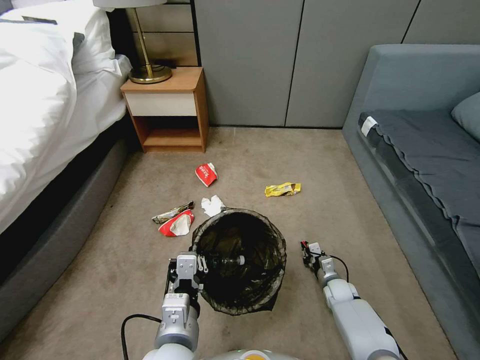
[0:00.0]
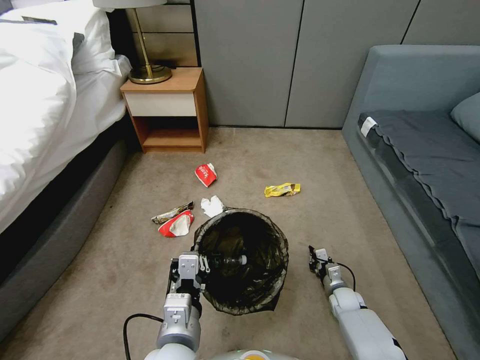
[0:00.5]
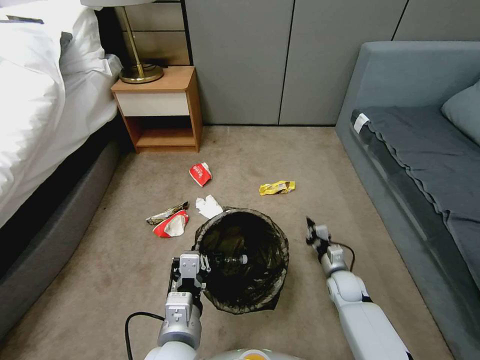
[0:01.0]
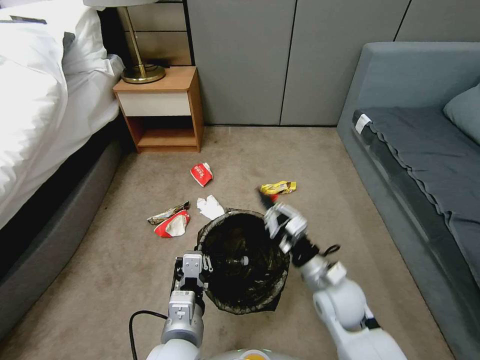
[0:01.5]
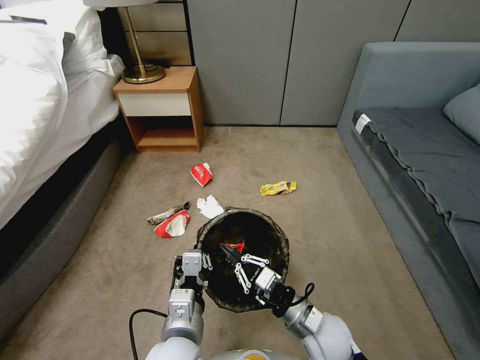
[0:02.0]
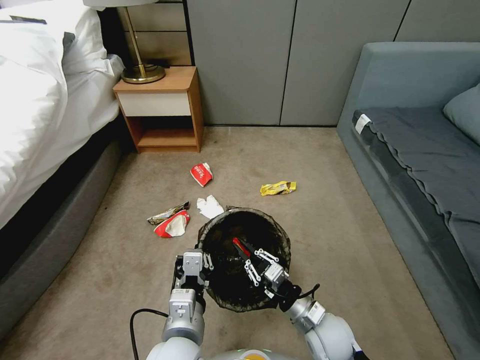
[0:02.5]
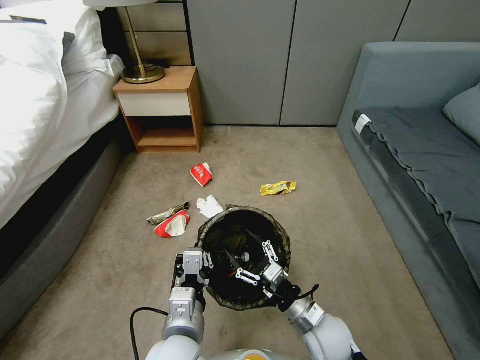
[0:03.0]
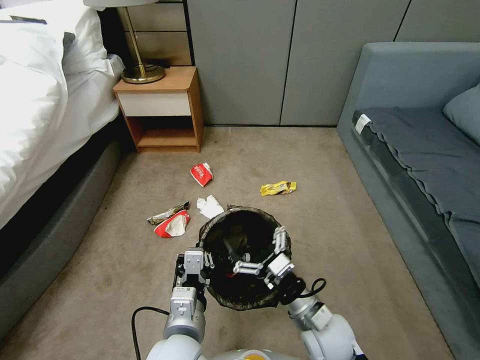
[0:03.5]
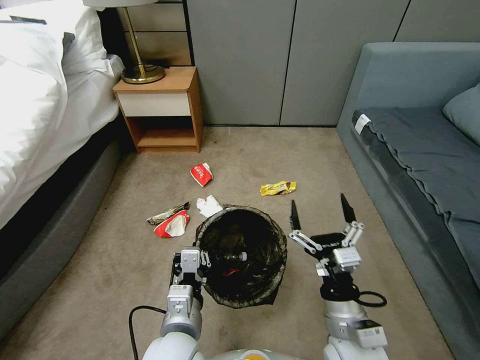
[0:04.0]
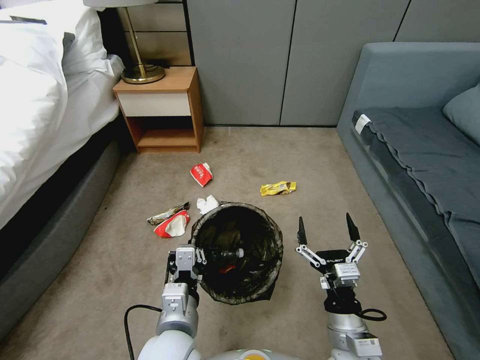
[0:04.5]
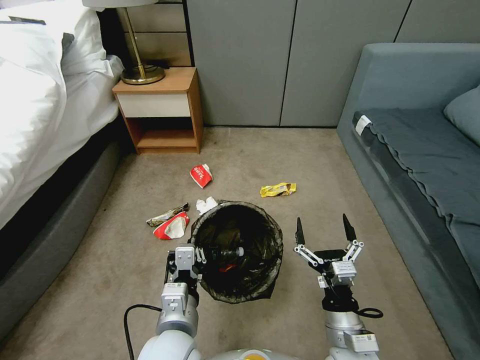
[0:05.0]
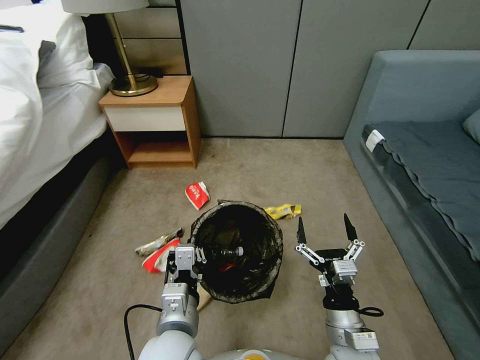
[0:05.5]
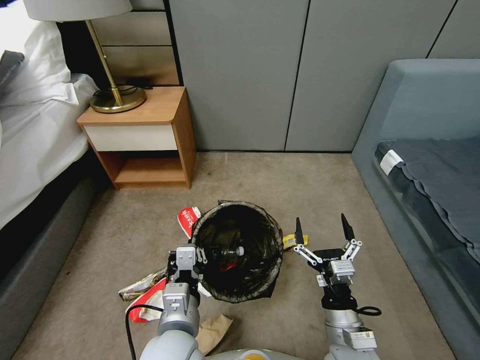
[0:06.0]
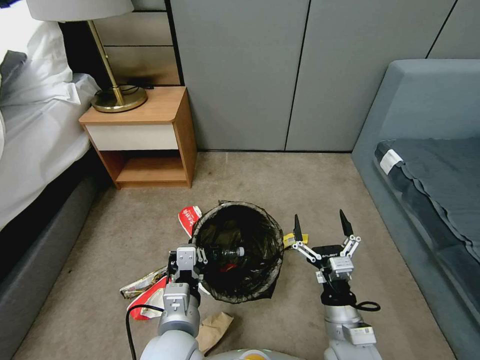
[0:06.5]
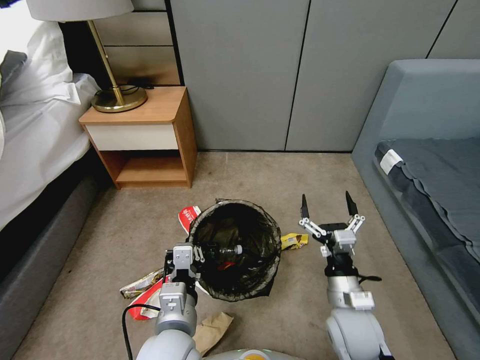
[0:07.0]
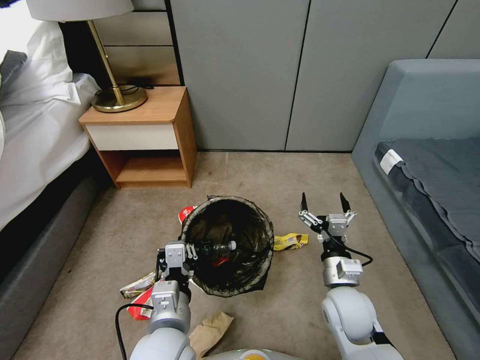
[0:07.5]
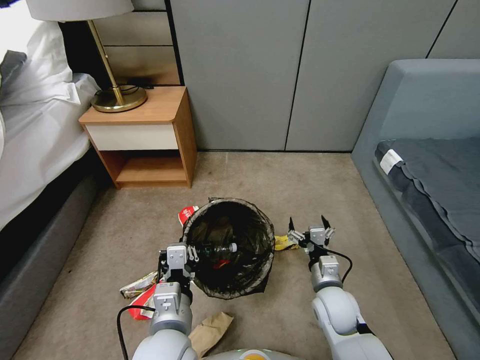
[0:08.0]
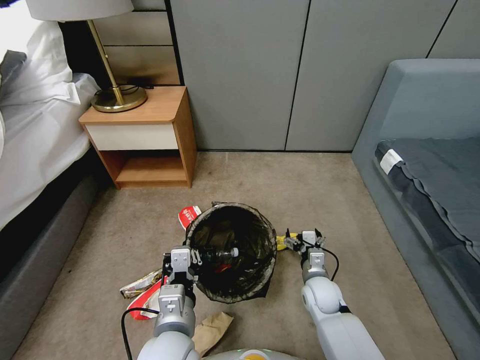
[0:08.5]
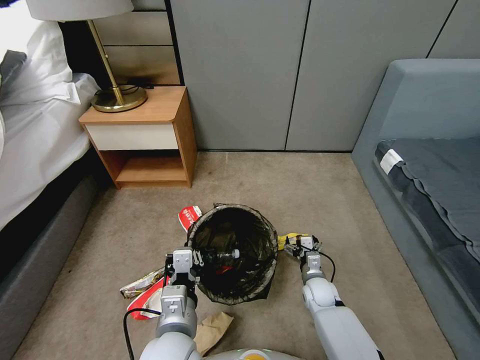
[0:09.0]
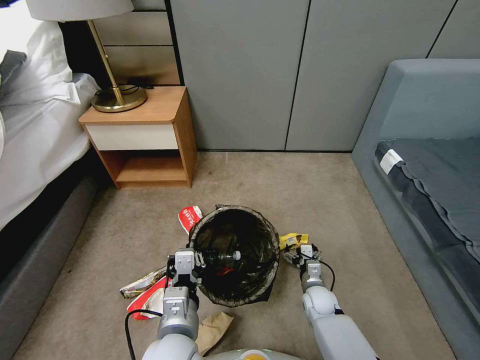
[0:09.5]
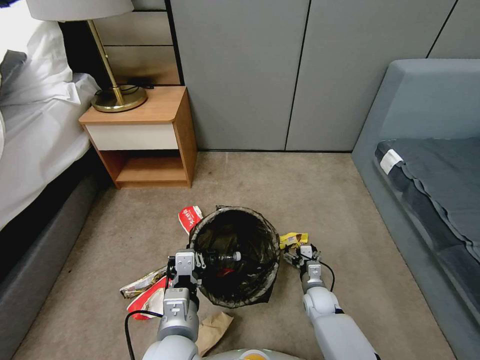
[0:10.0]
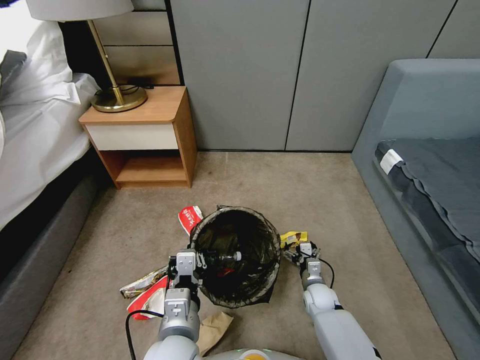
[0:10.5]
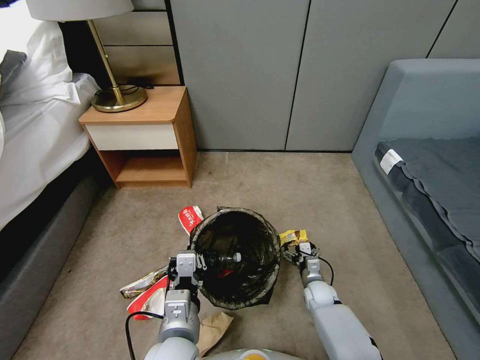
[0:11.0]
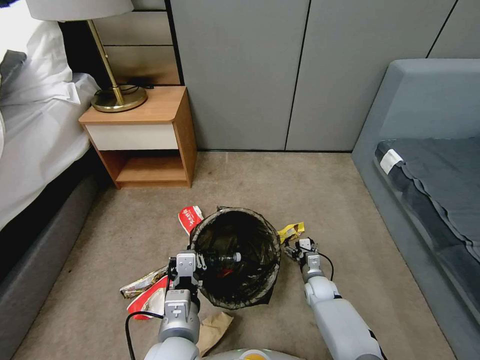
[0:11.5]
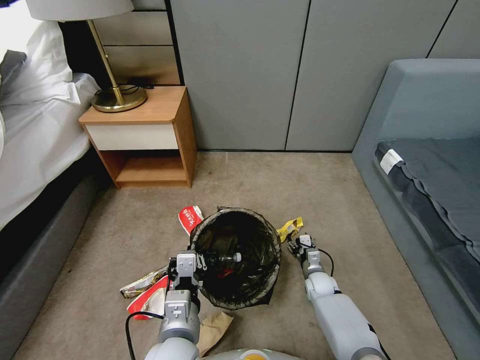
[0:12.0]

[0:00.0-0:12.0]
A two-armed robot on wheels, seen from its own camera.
Task of the whole recording: Pick up the trash bin, then pick up the garbage from the floor and place it into the trash bin.
0:00.0 to 0:02.0: The right gripper heads upward, to the left and backward, covering roughly 30 cm.
0:02.0 to 0:04.0: The right gripper travels upward by roughly 5 cm, and opens.
0:06.0 to 0:08.0: The right gripper is displaced forward by about 10 cm.
0:08.0 to 0:10.0: The right gripper is displaced downward by roughly 15 cm.
0:10.0 to 0:12.0: The grippers move only a little.

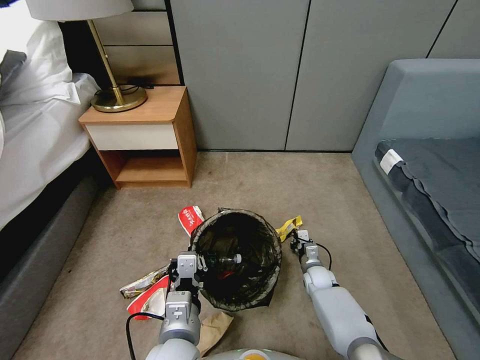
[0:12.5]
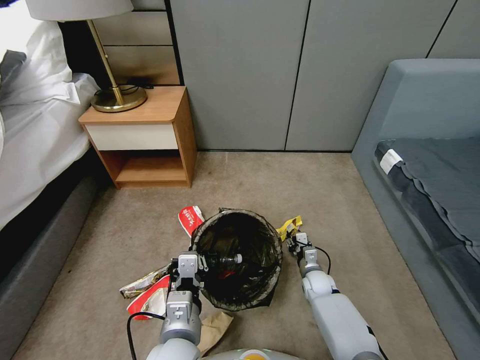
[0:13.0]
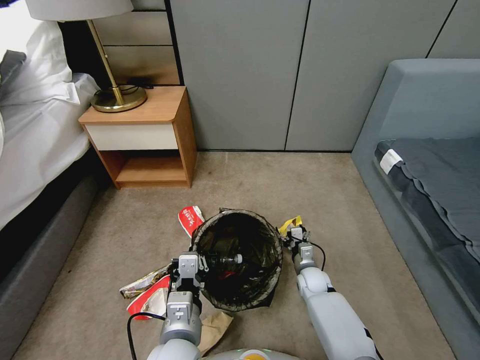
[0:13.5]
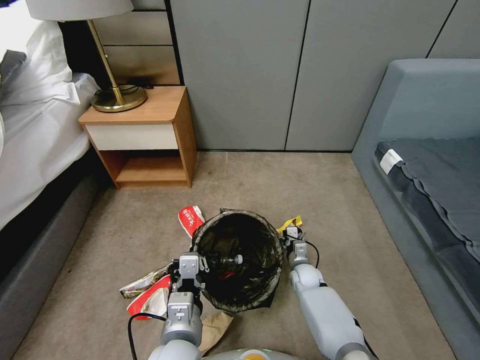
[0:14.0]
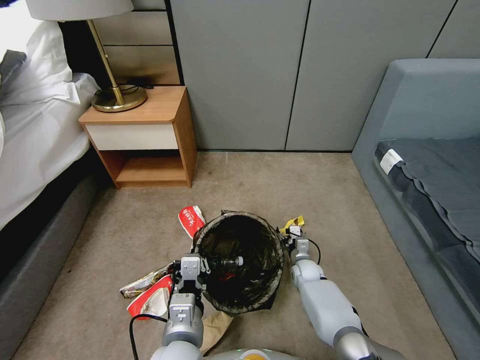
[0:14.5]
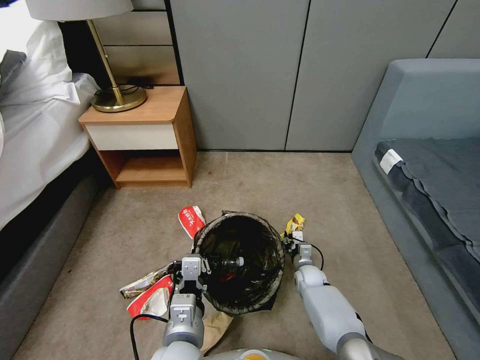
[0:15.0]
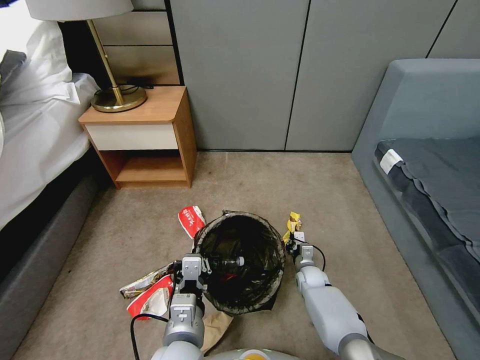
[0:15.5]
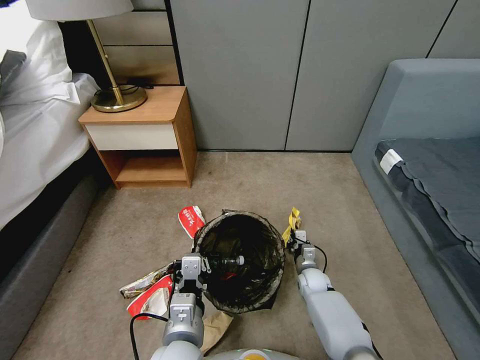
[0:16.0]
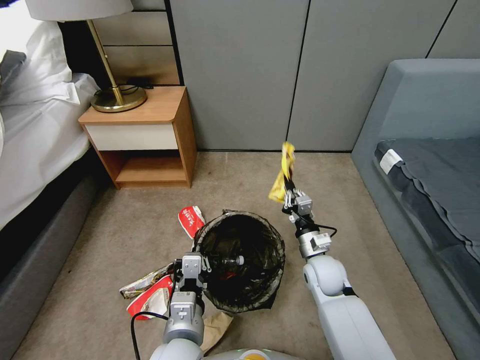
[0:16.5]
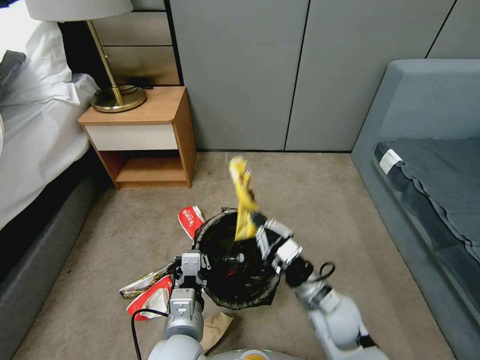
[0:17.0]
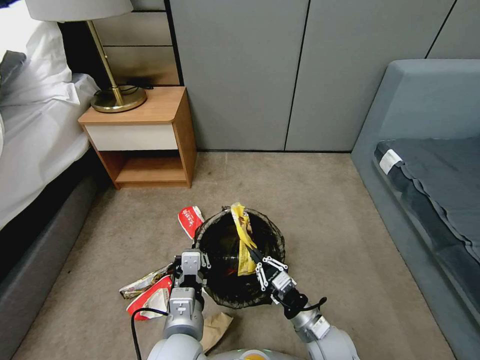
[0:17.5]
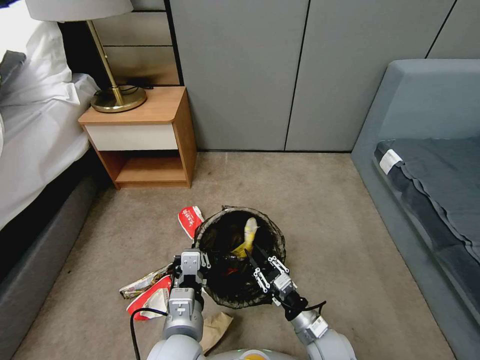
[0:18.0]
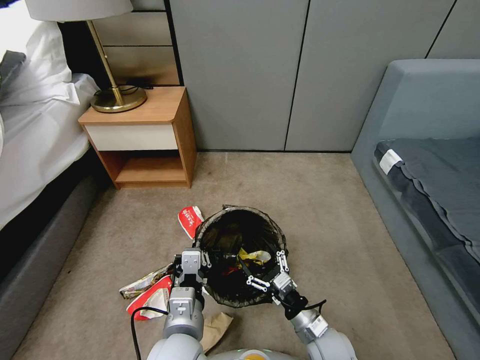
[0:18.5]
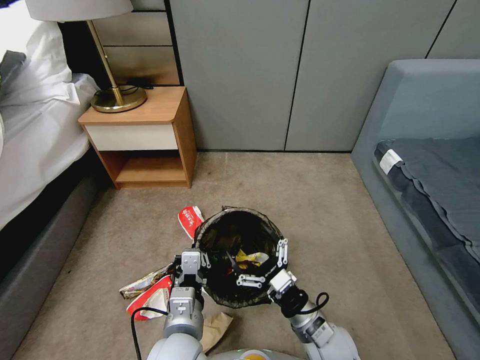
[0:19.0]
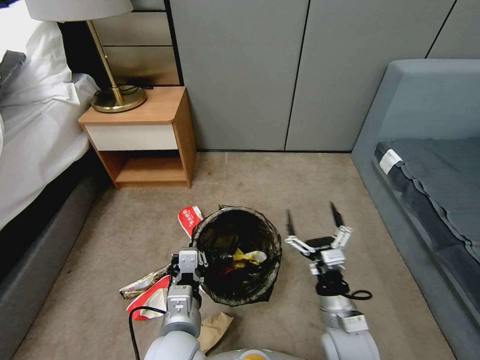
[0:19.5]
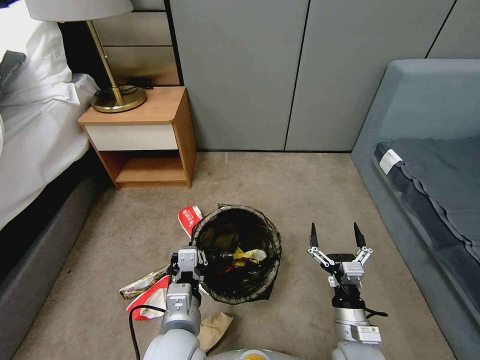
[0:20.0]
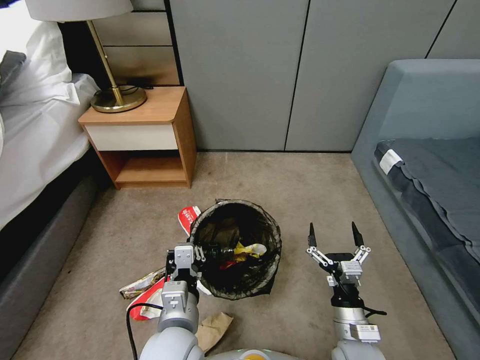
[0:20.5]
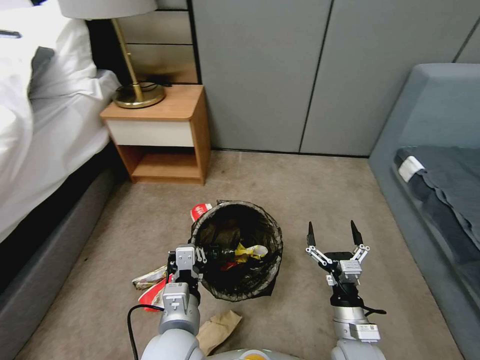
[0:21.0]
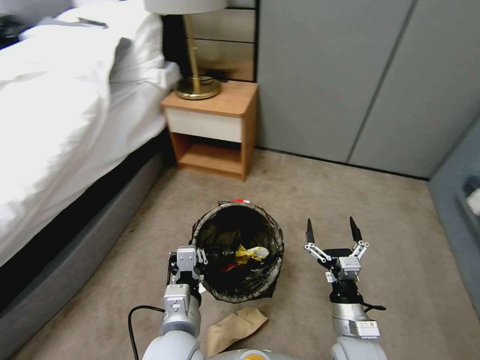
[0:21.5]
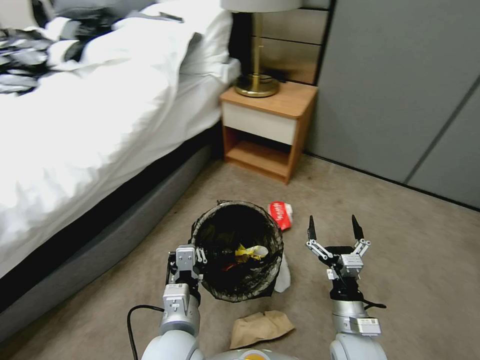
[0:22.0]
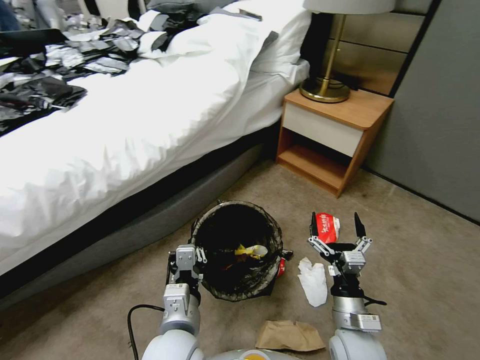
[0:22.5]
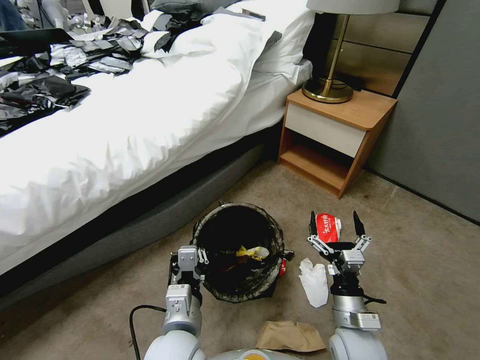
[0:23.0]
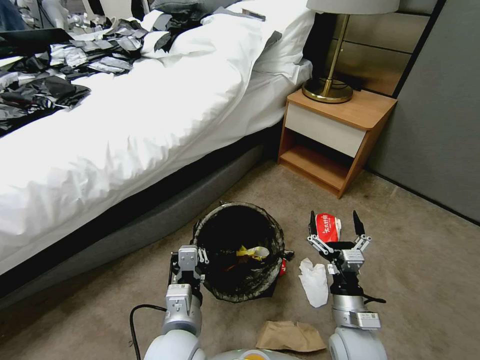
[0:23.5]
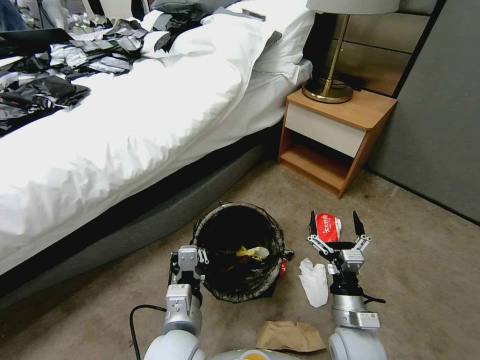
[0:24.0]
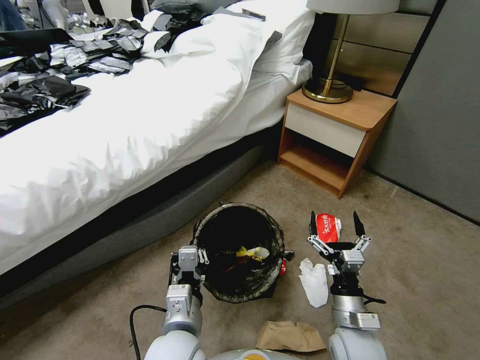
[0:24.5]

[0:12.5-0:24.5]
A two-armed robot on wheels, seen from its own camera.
Task of the whole recording: Pick up the trash bin, then pick up the garbage from the floor and place it into the trash bin.
0:12.5 to 0:14.5: The right gripper opens.
0:14.5 to 0:16.5: The right gripper is displaced upward by roughly 15 cm, and closes up.
0:16.5 to 0:18.5: The right gripper heads backward and downward, covering about 15 cm, and opens up.
0:18.5 to 0:20.5: The right gripper shifts approximately 5 cm upward.
0:22.5 to 0:24.5: The two grippers keep their place.

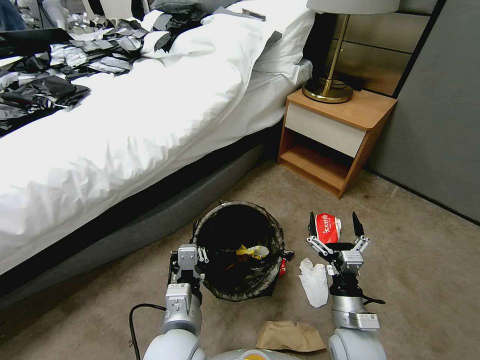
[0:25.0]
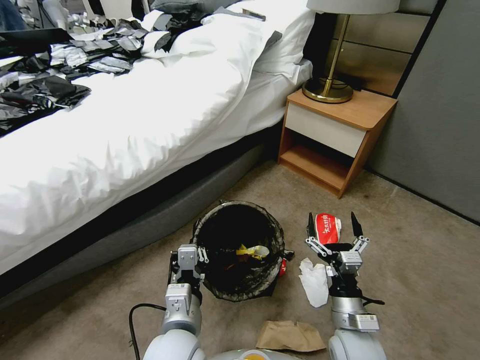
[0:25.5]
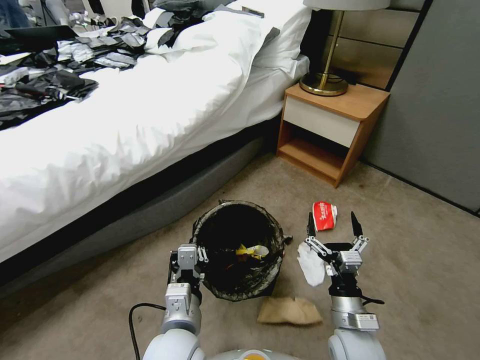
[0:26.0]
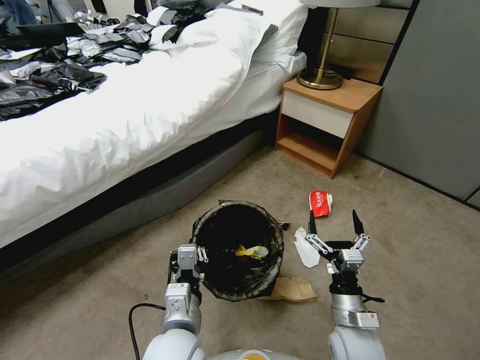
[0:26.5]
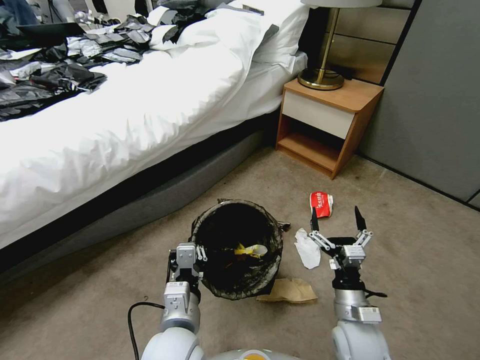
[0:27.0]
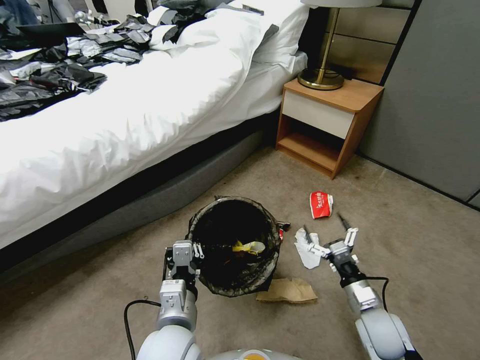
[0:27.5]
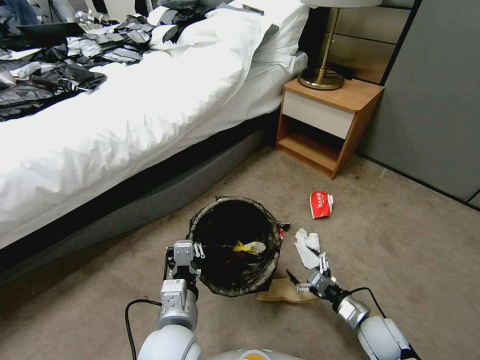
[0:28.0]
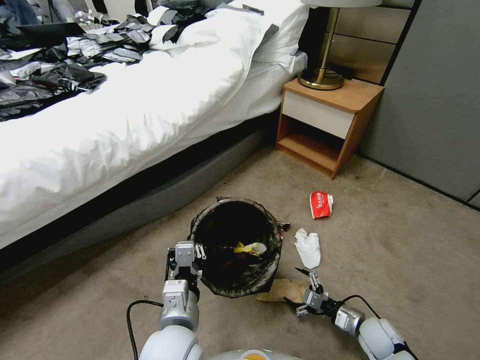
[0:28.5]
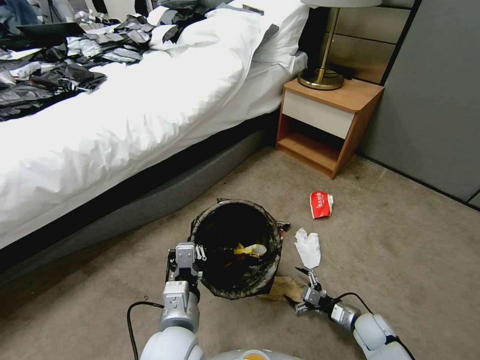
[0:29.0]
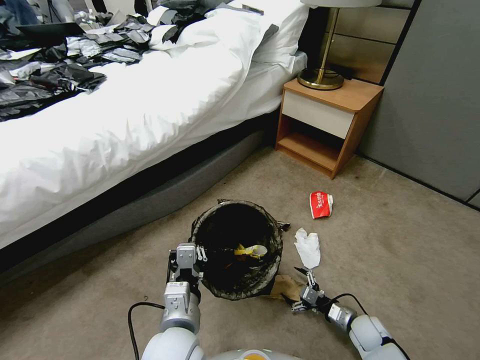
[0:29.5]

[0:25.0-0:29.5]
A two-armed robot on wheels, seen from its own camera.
Task of the whole recording: Pick up the trash bin, then pick up the garbage from the floor and place it into the trash bin.
0:27.0 to 0:29.5: The right gripper travels downward and to the right by roughly 20 cm.
